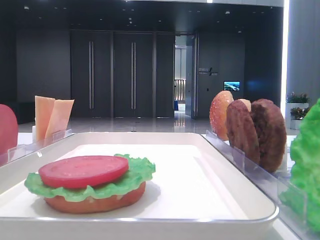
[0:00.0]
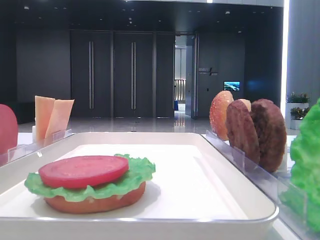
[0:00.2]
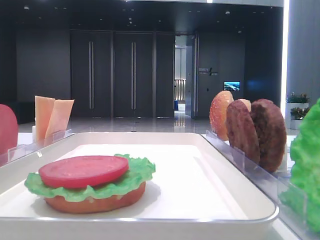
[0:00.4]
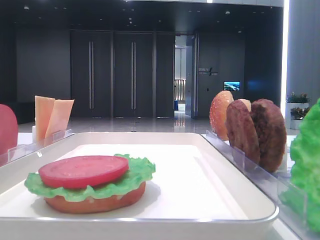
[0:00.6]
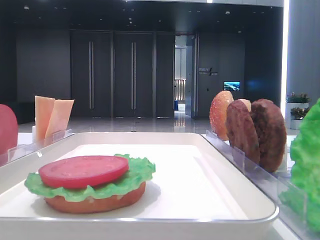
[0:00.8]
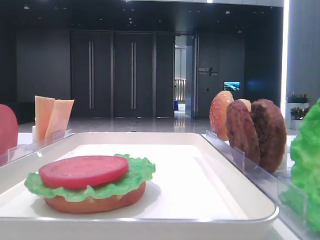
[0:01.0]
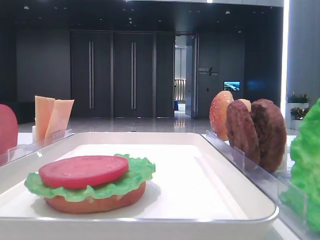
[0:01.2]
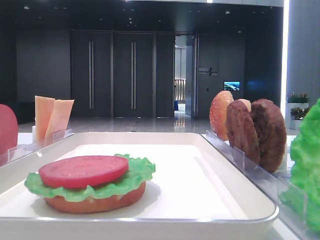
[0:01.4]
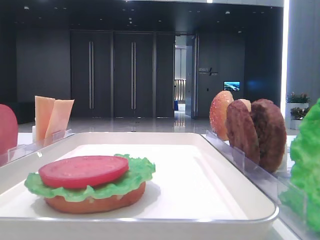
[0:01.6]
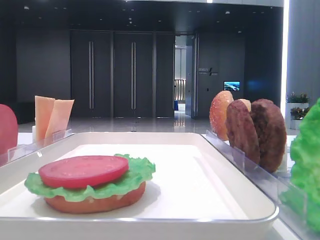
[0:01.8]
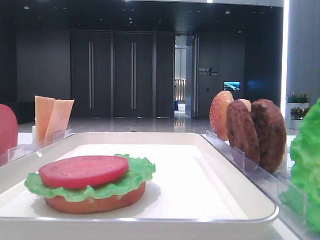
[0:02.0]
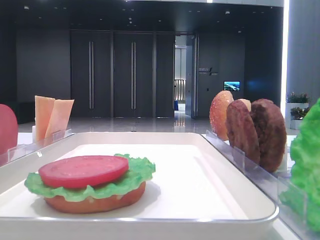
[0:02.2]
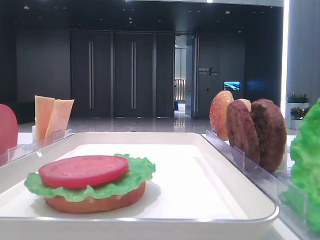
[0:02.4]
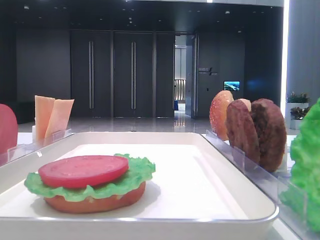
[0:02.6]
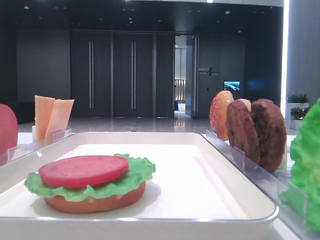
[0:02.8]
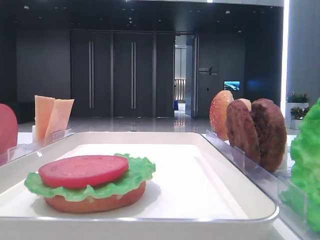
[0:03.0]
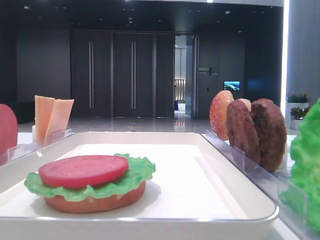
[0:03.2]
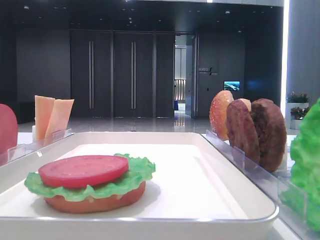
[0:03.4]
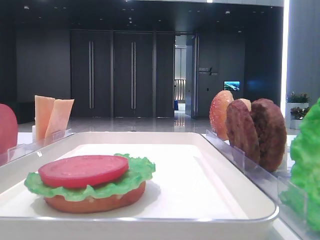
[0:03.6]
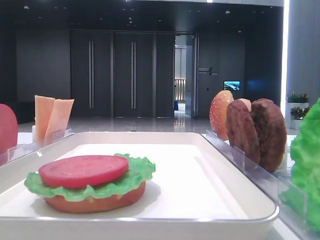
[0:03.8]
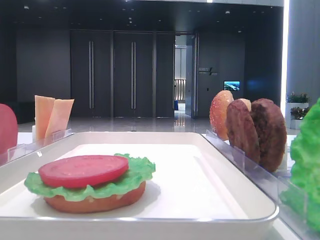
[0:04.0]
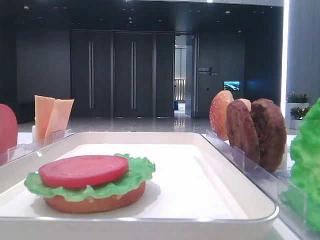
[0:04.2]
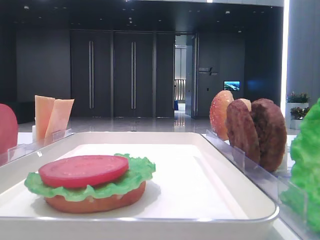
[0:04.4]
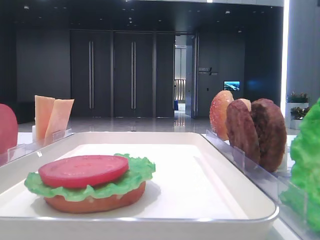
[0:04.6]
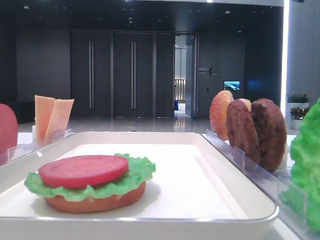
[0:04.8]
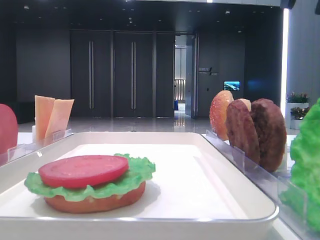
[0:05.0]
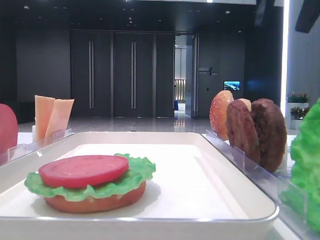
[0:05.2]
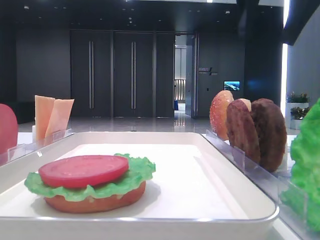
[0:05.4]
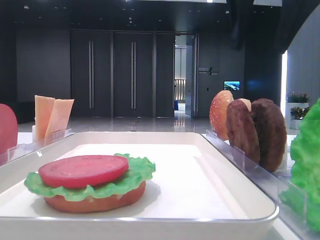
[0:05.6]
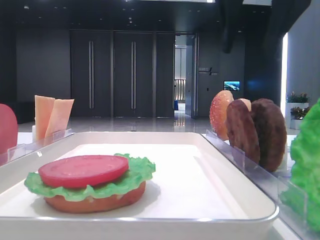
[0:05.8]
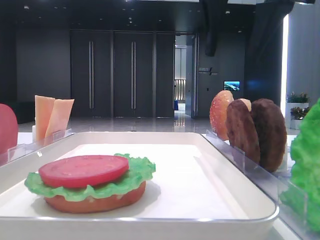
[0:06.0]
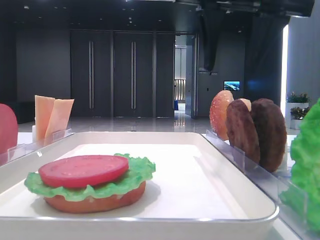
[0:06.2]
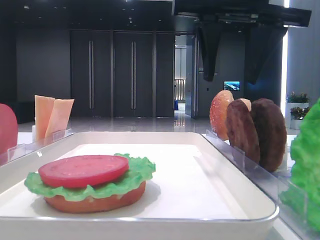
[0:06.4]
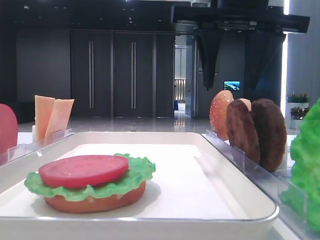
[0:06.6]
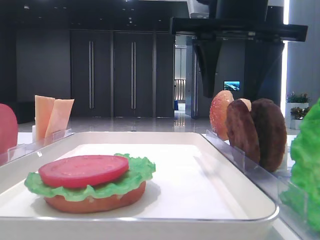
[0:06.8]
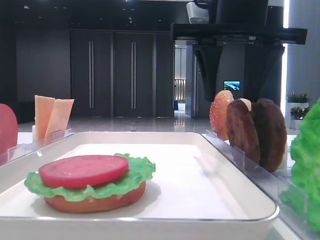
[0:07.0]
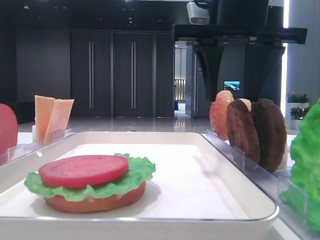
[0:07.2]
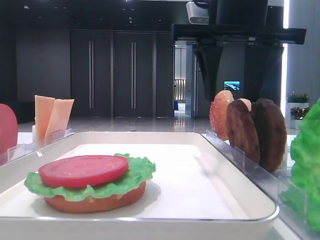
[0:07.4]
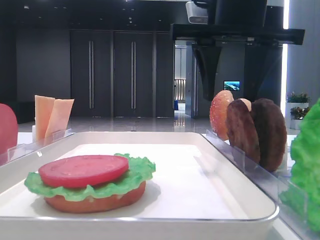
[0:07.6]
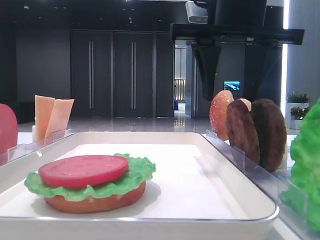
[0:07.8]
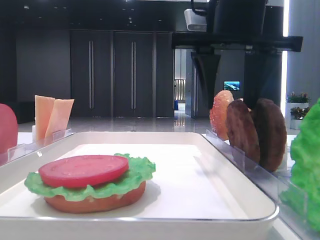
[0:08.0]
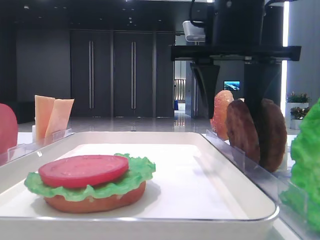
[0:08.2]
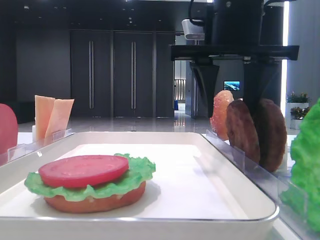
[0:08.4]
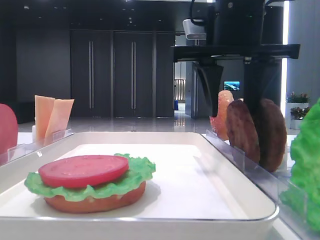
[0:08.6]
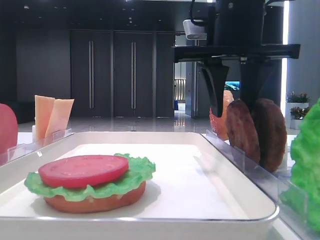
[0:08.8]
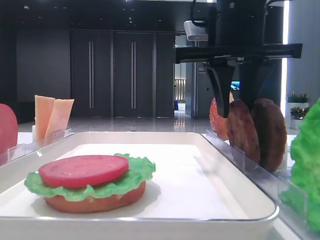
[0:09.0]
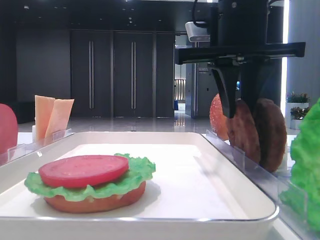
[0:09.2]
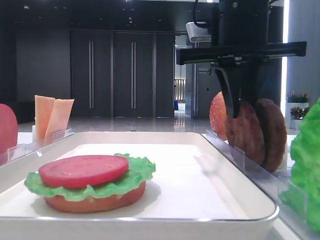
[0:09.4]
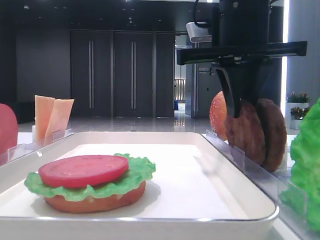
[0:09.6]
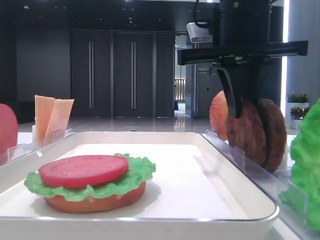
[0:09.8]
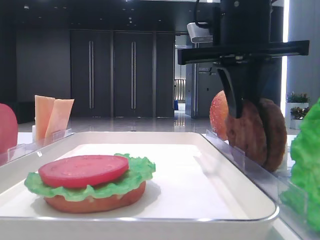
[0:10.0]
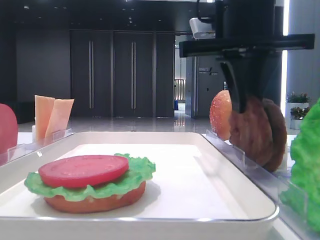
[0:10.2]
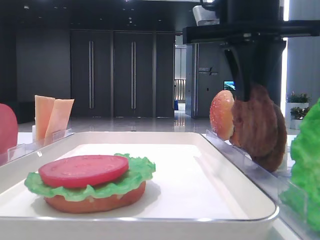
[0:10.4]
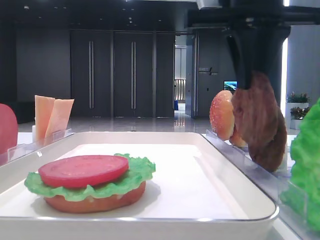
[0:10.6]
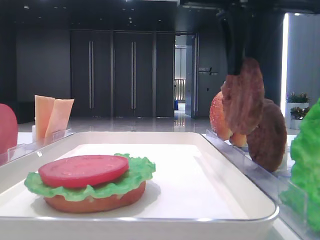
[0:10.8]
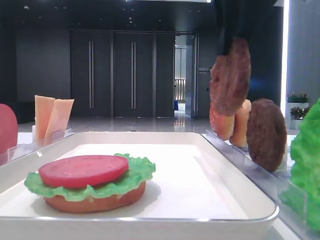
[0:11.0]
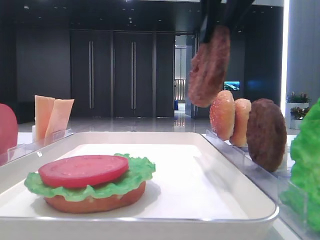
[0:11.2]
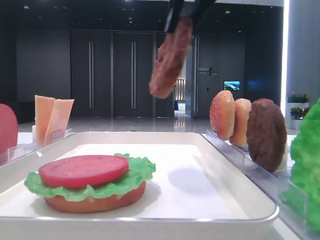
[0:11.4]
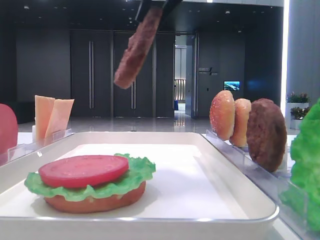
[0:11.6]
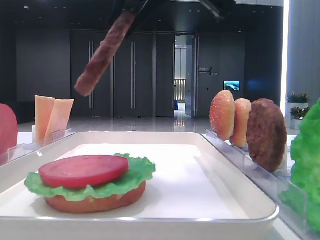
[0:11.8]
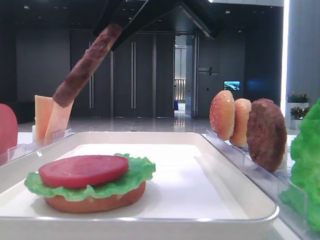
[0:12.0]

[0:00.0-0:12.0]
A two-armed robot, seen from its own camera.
Step, 0:00.0 to 0:09.2: Grab the patty with the right hand.
0:04.4 to 0:06.0: The right gripper goes about 15 cm to the left, and opens up.
0:06.0 to 0:07.6: The right gripper moves downward, approximately 5 cm.
0:07.6 to 0:09.0: The right gripper closes its fingers.
0:09.0 to 0:10.4: The right gripper closes.
0:10.4 to 0:12.0: The right gripper shifts roughly 10 cm to the left and backward.

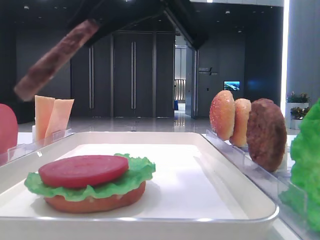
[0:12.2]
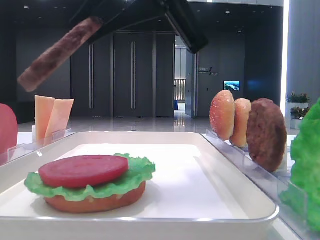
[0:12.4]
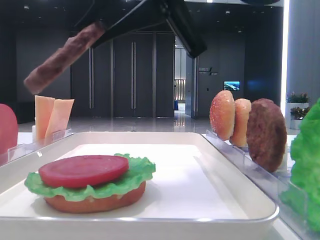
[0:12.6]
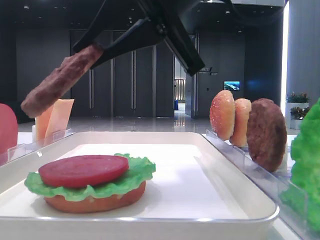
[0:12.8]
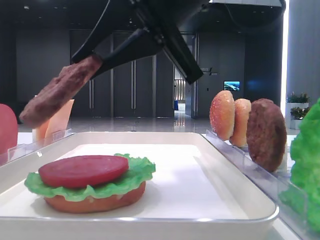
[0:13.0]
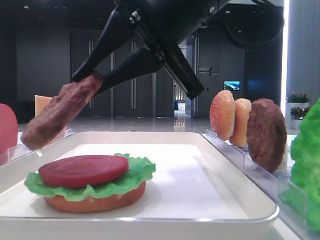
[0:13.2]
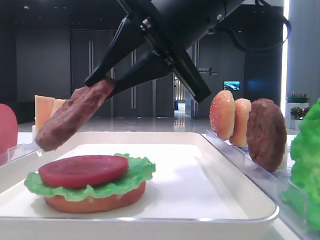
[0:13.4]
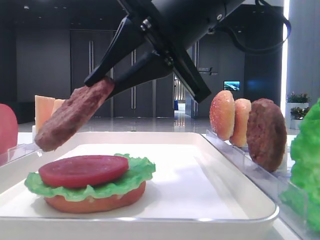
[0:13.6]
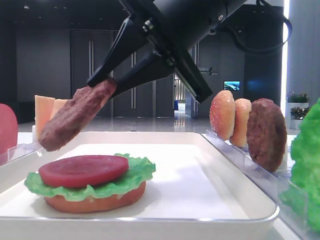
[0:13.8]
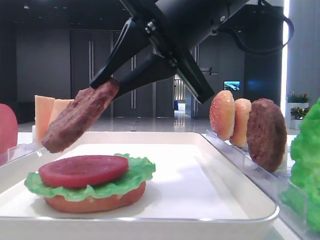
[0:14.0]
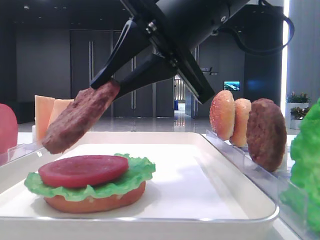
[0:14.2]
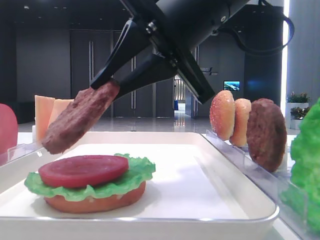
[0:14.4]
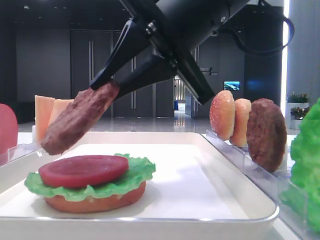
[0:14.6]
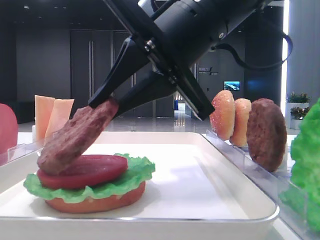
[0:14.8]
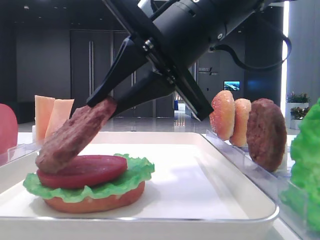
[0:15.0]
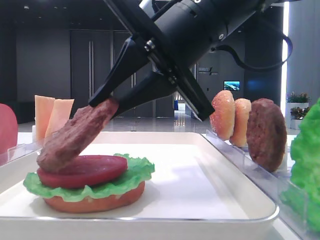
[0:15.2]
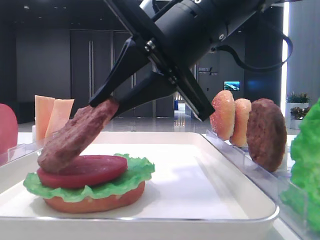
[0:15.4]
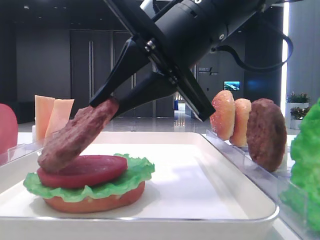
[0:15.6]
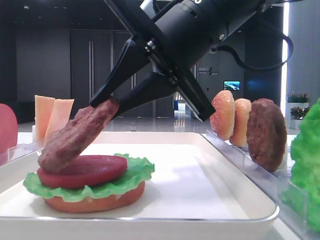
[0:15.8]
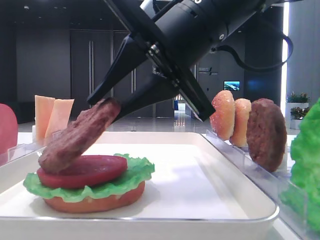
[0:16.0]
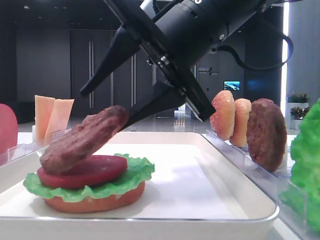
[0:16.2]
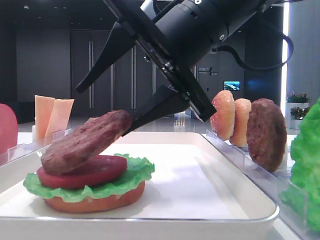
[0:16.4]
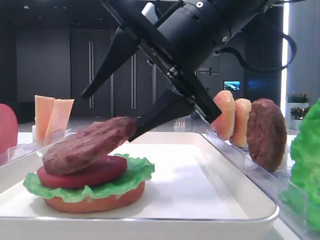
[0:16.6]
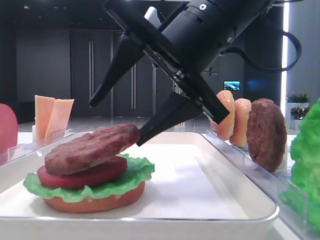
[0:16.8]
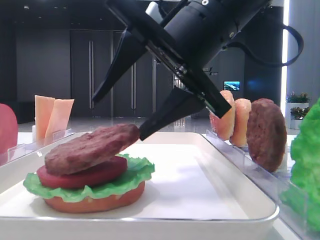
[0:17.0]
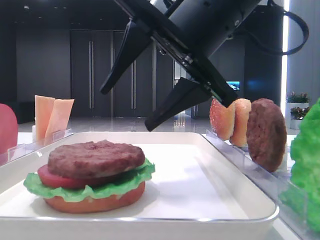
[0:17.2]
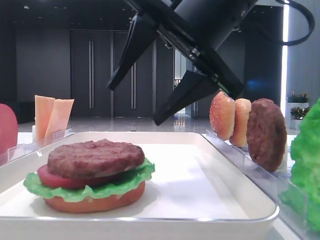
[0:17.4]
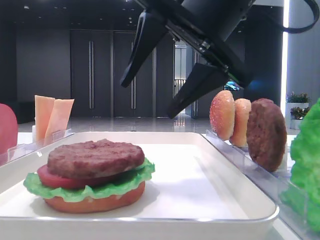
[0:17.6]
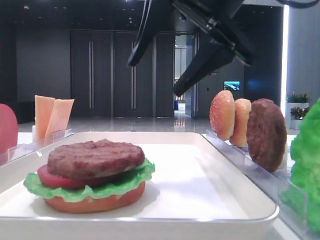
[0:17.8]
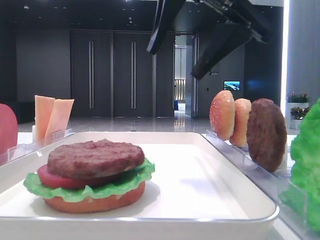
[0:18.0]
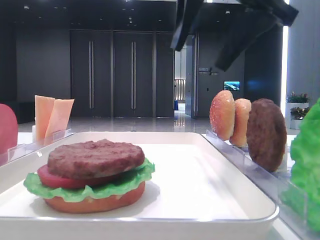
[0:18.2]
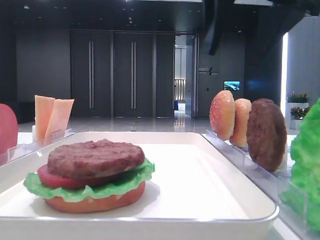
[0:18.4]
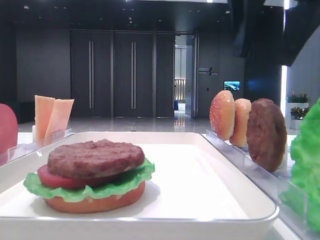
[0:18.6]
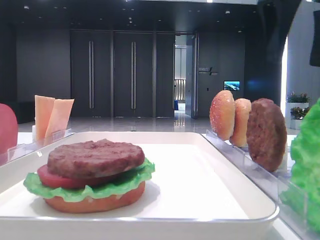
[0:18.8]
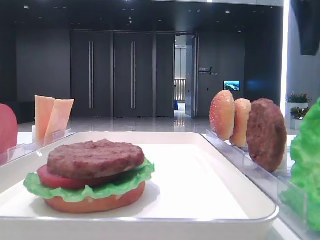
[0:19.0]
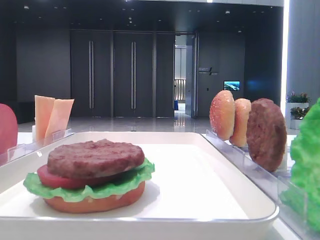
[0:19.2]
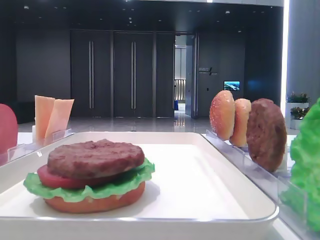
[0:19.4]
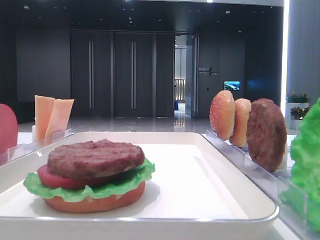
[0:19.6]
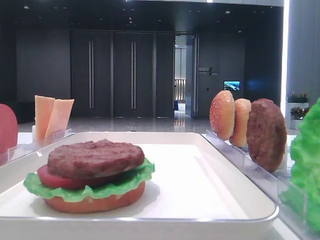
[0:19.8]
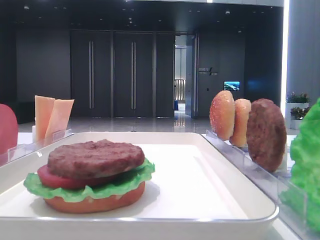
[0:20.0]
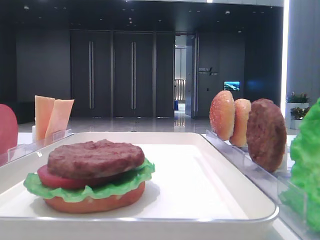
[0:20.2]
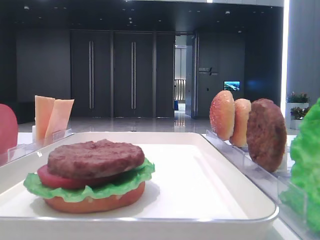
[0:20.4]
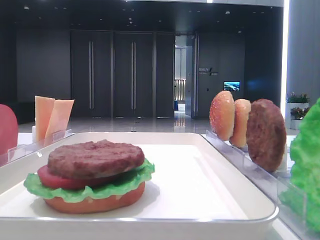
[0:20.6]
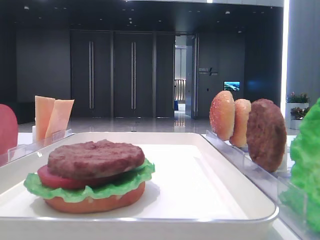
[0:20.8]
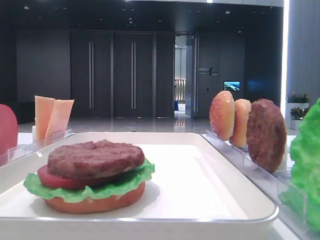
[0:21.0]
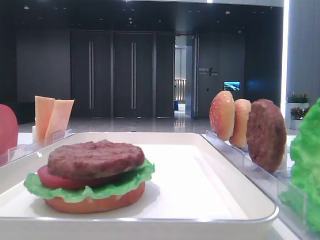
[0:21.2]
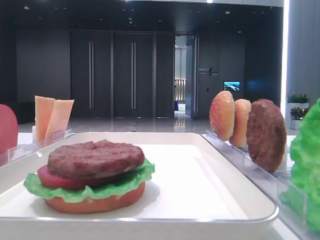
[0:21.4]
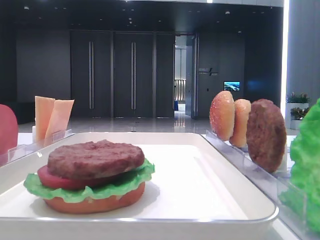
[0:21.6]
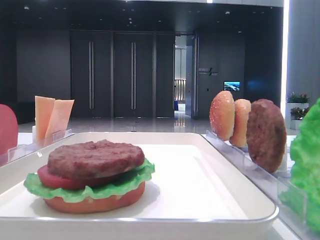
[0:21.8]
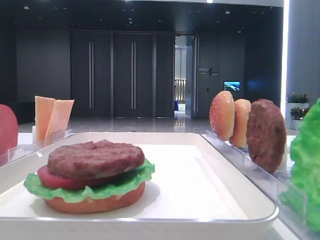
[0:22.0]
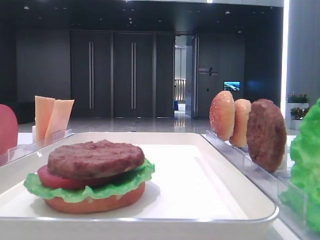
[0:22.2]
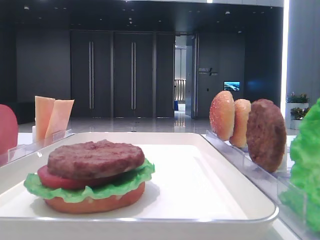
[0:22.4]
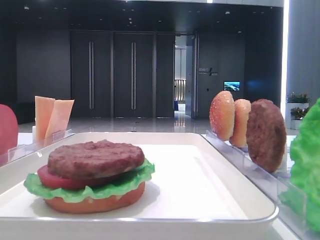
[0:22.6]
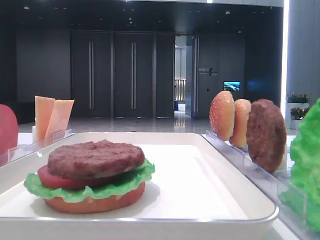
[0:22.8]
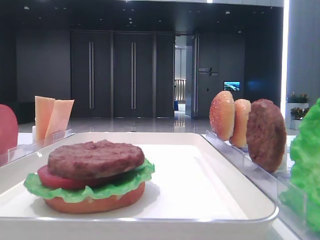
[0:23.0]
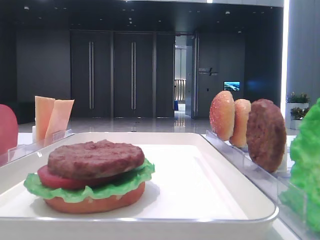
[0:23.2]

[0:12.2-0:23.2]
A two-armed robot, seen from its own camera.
Step, 0:12.2 to 0:17.2: Place the patty on the tomato slice with the right hand.
0:12.2 to 0:13.8: The right gripper heads downward, covering about 5 cm.
0:13.8 to 0:15.4: There are only small adjustments of the grippers.
0:15.4 to 0:17.0: The right gripper opens.
0:17.0 to 0:18.4: The right gripper shifts approximately 10 cm upward and to the right.
0:18.4 to 0:20.0: The right gripper travels to the right by about 15 cm.
